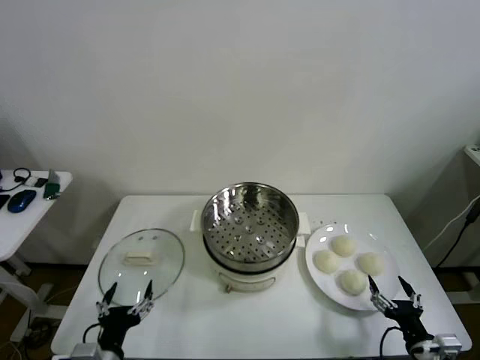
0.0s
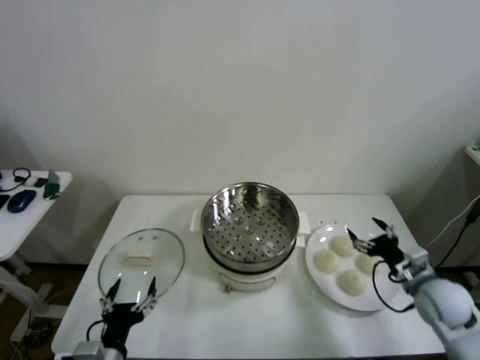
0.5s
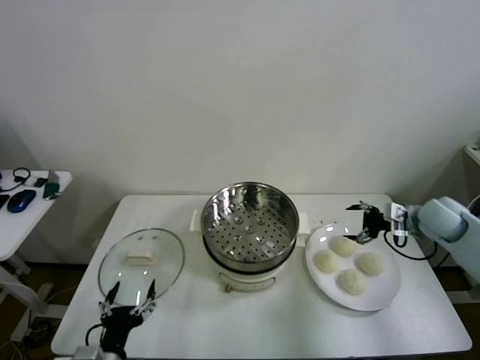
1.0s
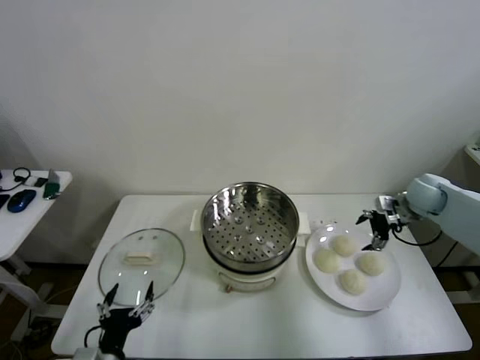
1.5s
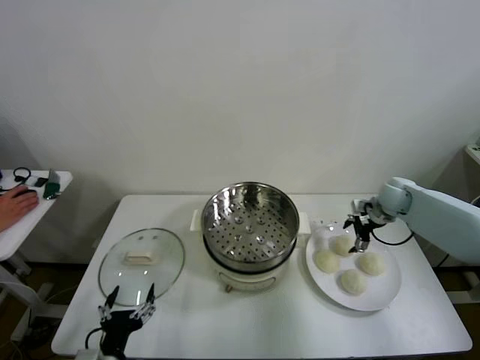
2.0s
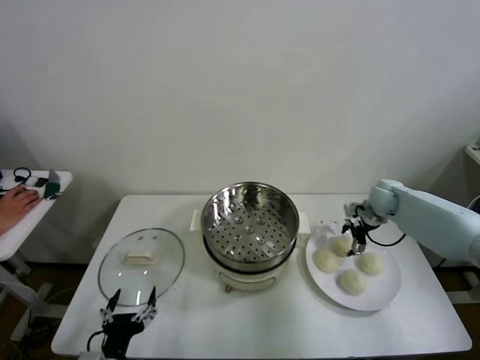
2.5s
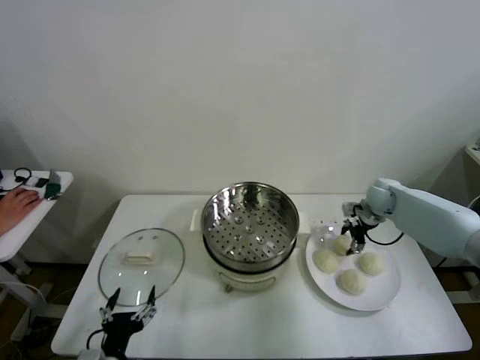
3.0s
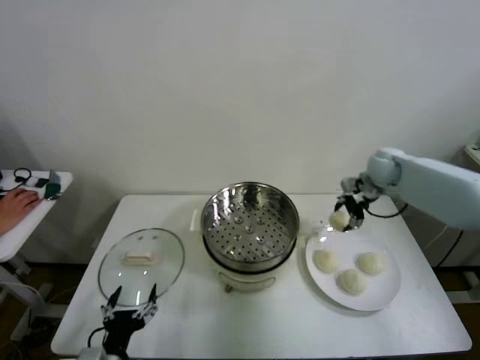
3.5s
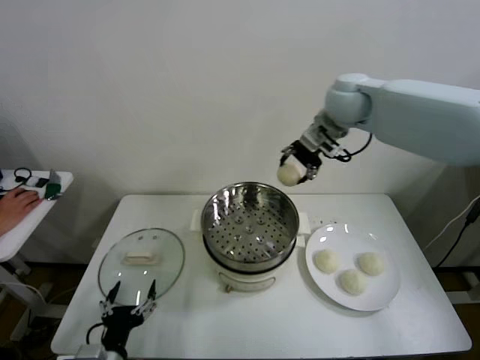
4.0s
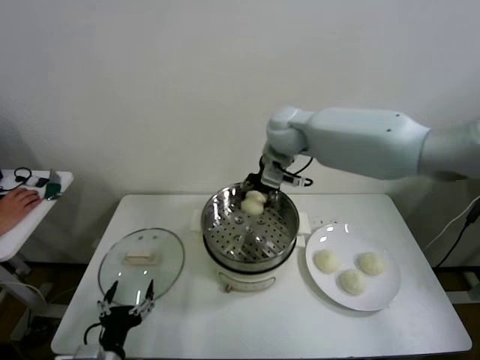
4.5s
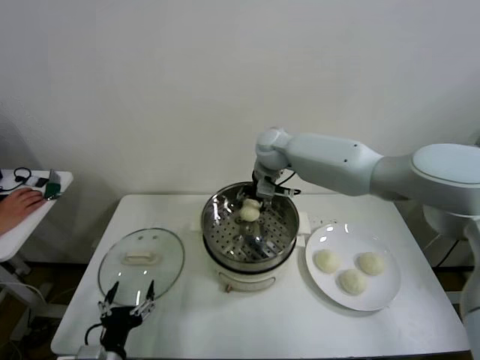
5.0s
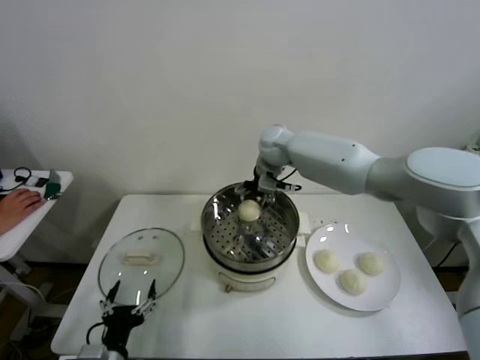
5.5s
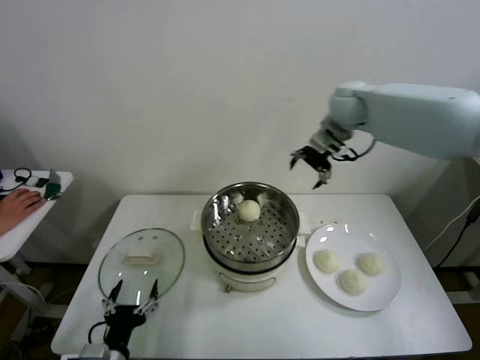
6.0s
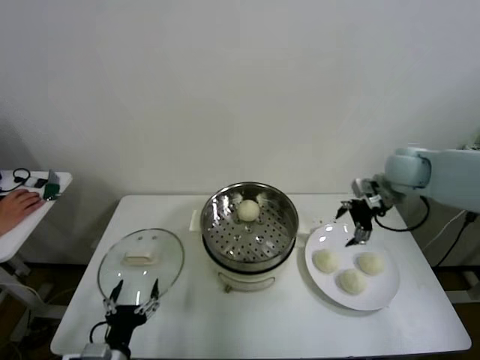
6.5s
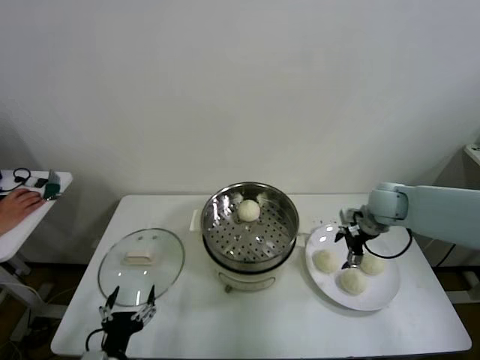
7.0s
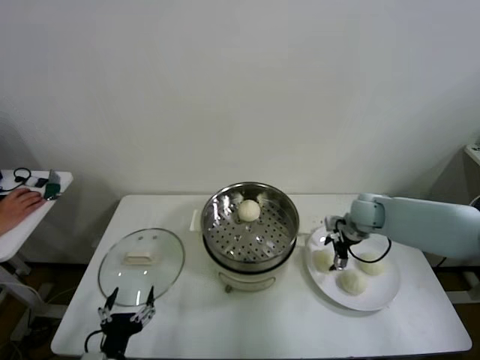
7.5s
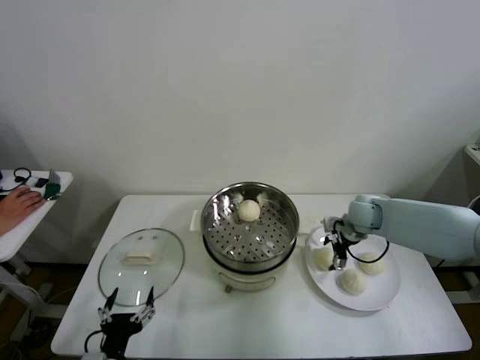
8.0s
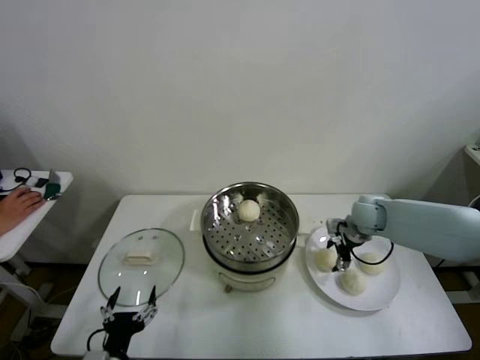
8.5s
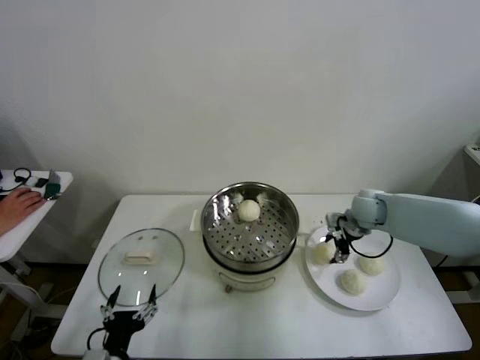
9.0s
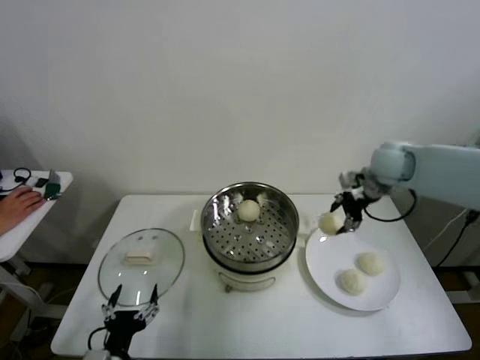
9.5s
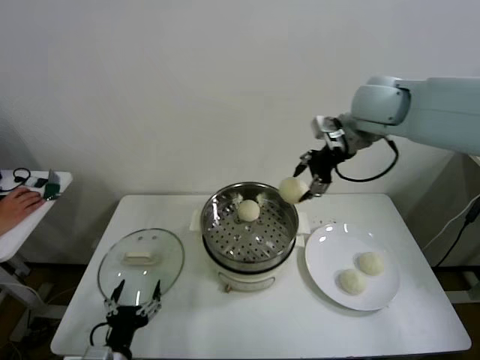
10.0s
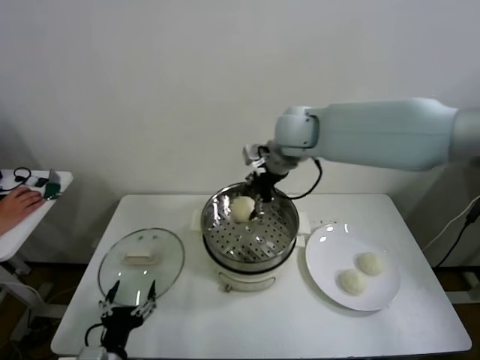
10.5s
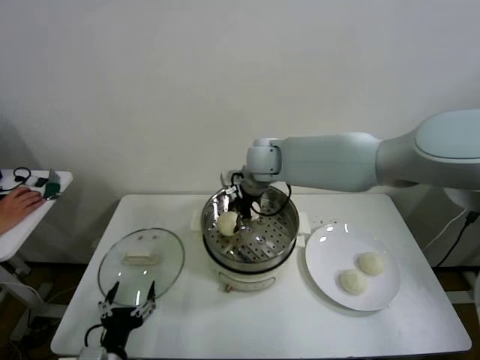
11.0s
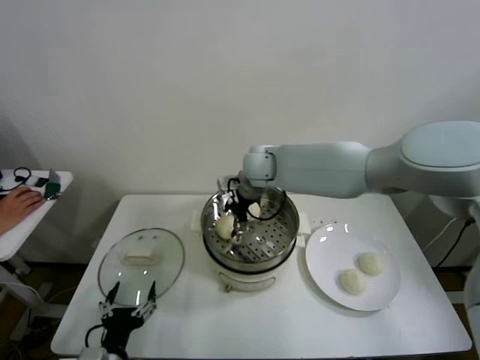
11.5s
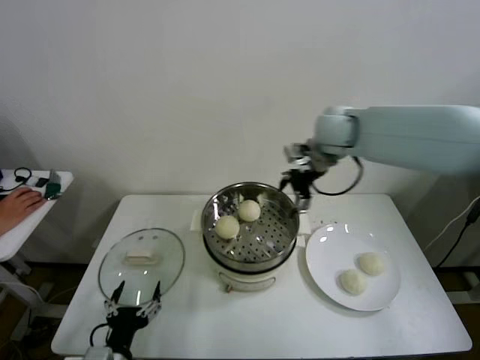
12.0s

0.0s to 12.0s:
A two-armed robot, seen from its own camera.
Step, 0.0s to 2.5s: Grasp the baozi in the plate with right gripper.
Step, 3.5s to 5.0s: Place the baozi on the steamer with right gripper.
Step, 5.5s to 8.5s: Grasp the baozi in the plate with right gripper.
Step, 9.0s to 11.5s: Place the baozi on the steamer with right gripper.
2.0s to 4.0s: The right gripper travels upward and to the left by roughly 35 cm, and closes up.
4.0s to 6.0s: The right gripper moves to the right, some 10 cm, and opens up.
6.0s to 8.0s: The right gripper shifts some 25 cm downward.
8.0s to 10.0s: The right gripper heads upward, covering about 30 cm, and closes its fingers.
10.0s to 12.0s: The right gripper heads downward, covering about 5 cm, moves about 15 cm to the left and comes back, and opens its fingers.

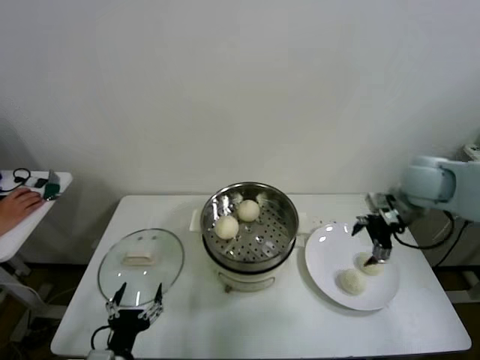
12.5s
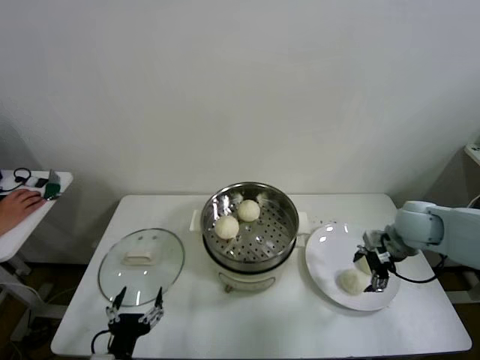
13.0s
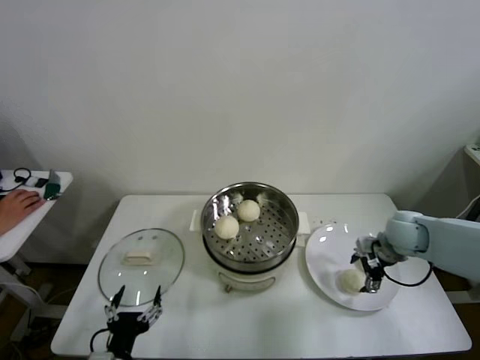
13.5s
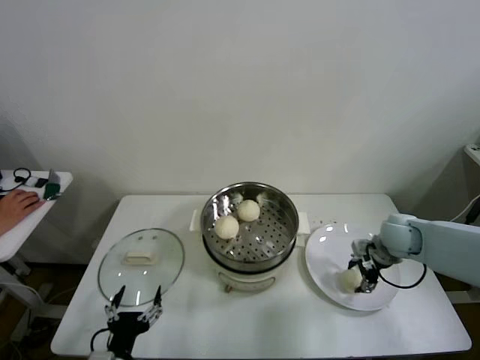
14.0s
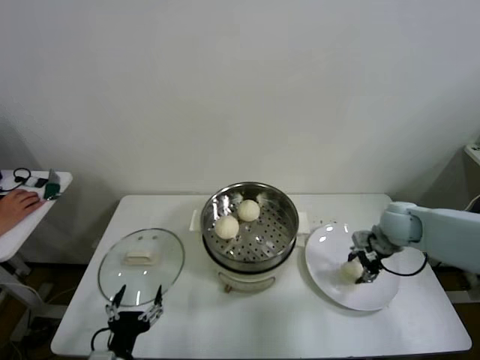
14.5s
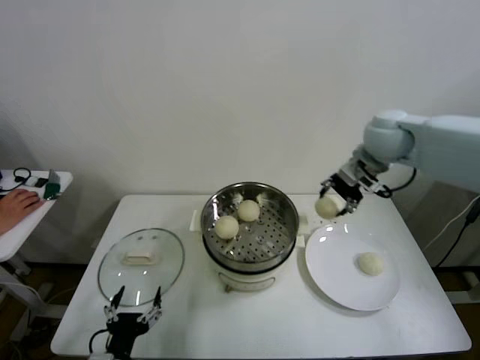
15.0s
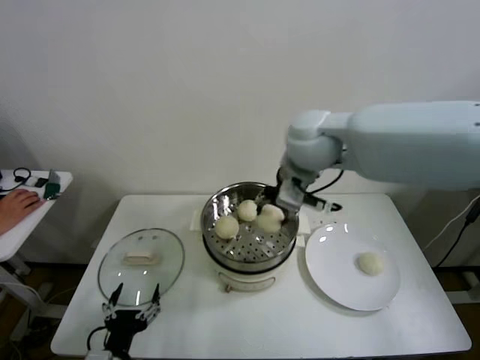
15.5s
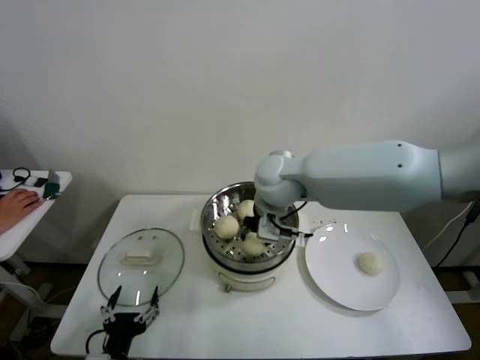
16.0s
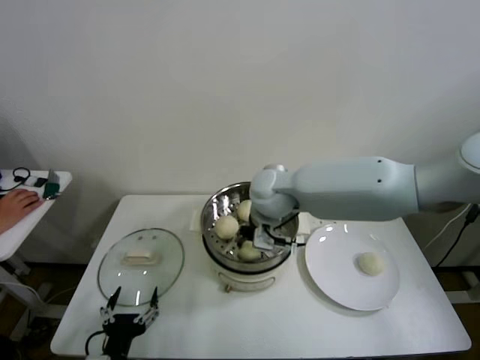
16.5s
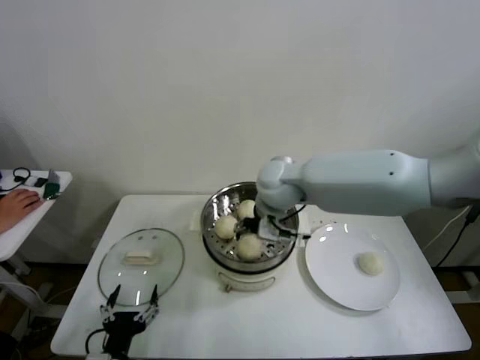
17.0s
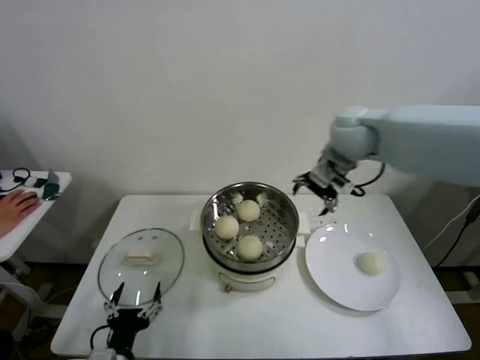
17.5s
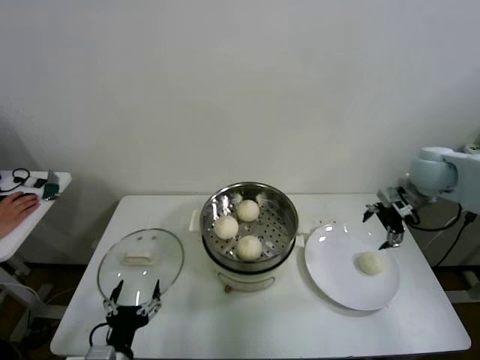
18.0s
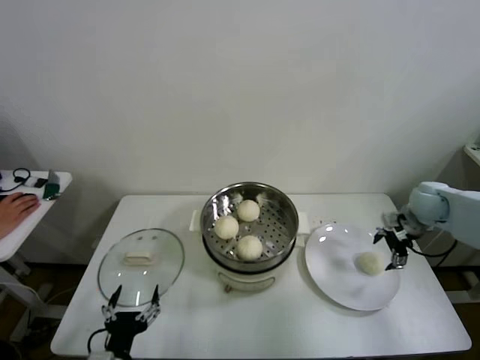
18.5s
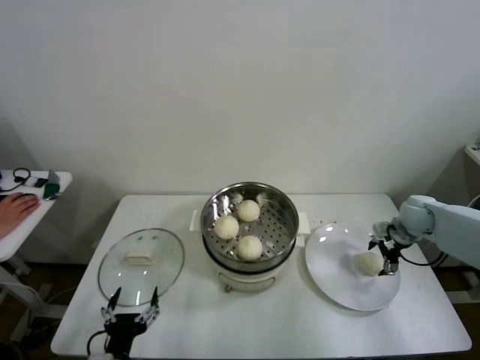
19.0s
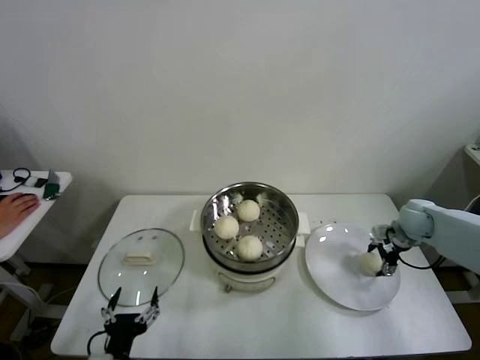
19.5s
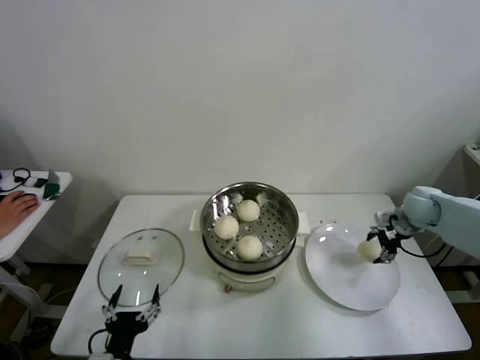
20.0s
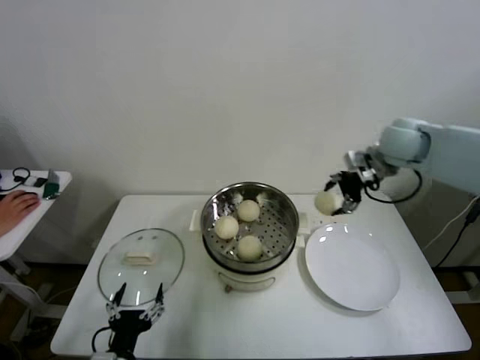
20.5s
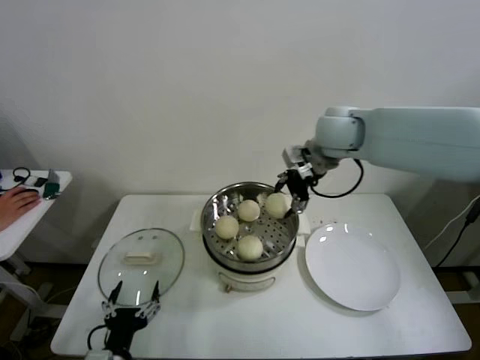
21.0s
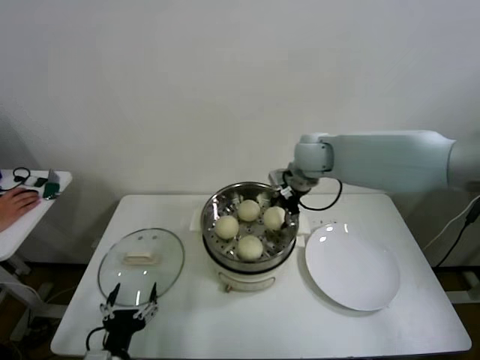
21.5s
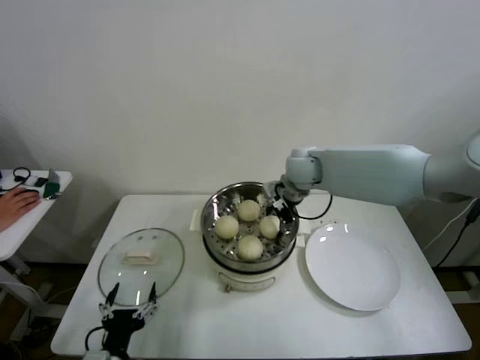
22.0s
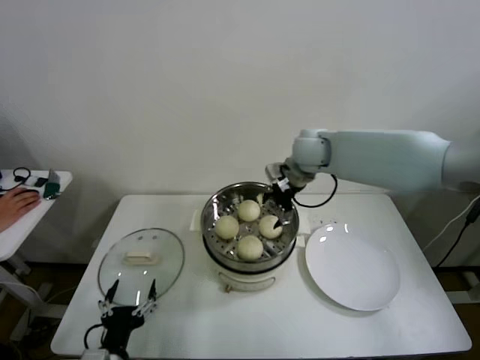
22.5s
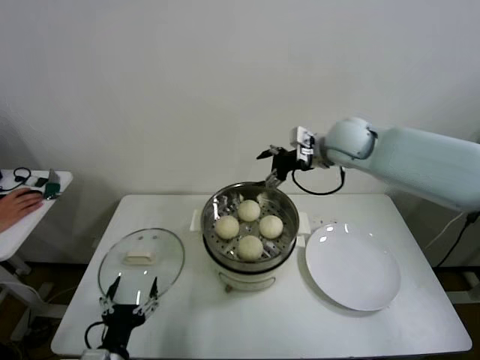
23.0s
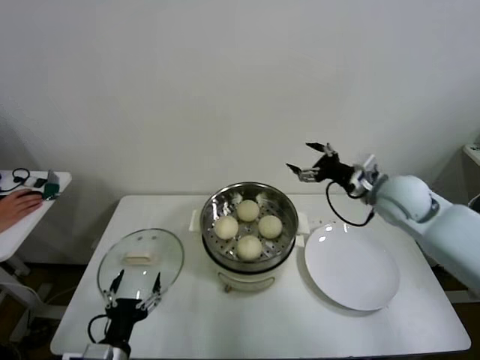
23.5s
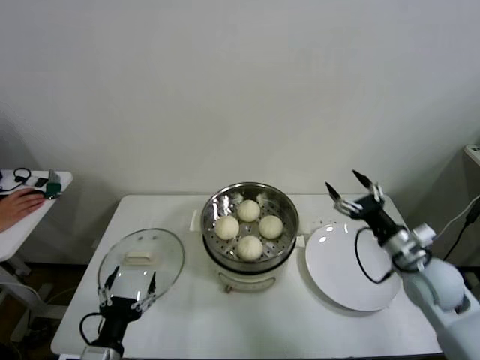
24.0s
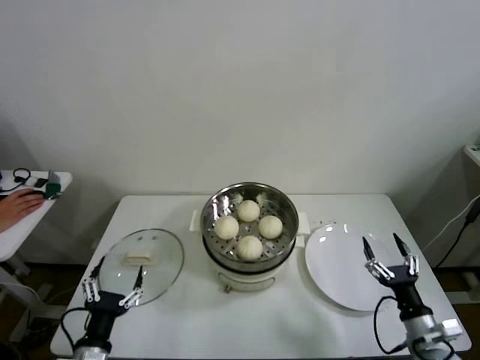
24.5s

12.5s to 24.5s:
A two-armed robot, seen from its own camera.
Step, 12.5s to 14.0s: Grasp the baozi in the plate with right gripper.
Step, 14.5s to 16.5s: Place the baozi on the steamer with right gripper.
Step, 17.0s to 19.0s: Grasp the baozi in the plate with right gripper.
Step, 20.0s to 22.0s: Place the baozi on the steamer with right gripper.
12.5s to 14.5s: The right gripper is displaced downward by some 10 cm, and closes.
14.5s to 16.5s: The right gripper moves to the left, approximately 30 cm.
16.5s to 18.5s: The right gripper travels to the right by about 40 cm, and opens up.
18.5s to 20.5s: The right gripper moves upward and to the left, approximately 20 cm, and closes up.
20.5s to 22.5s: The right gripper shifts approximately 15 cm to the left, and opens up.
22.5s to 24.5s: The right gripper is displaced backward, downward and to the right by roughly 50 cm.

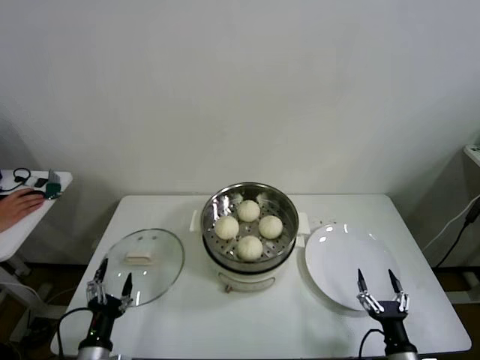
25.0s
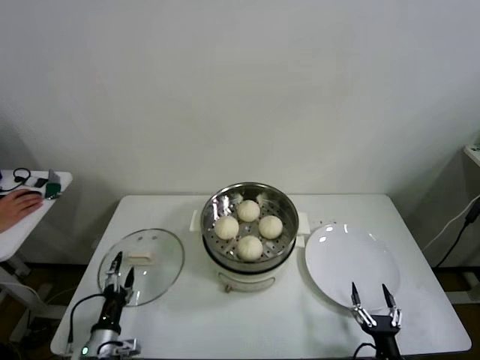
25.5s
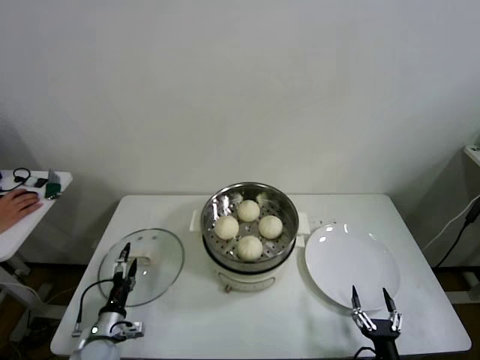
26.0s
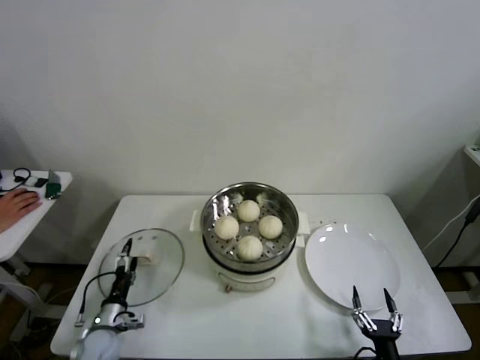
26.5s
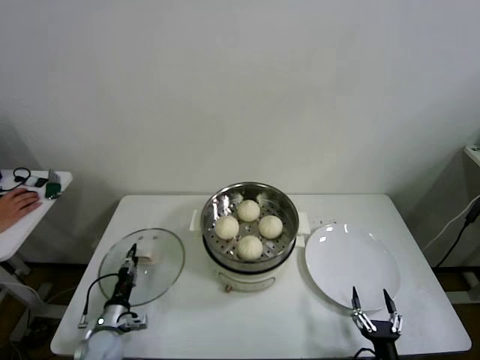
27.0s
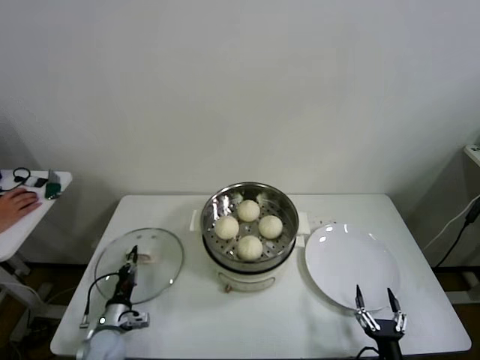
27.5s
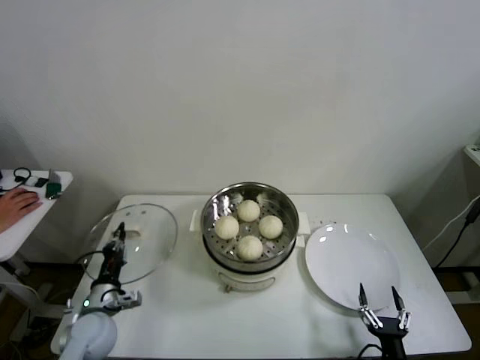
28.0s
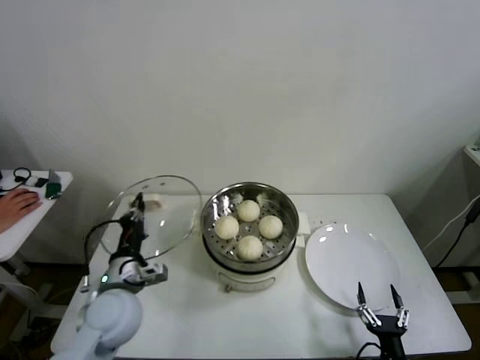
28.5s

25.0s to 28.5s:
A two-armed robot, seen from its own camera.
Step, 25.0s to 27.0s: Grasp the pot lid with left gripper.
25.0s to 27.0s: The right gripper moves about 5 cm. The left gripper goes approximately 15 cm forward and downward, and closes its fingers.
27.0s to 28.5s: The left gripper heads upward and to the right, covering some 25 cm, and closes.
